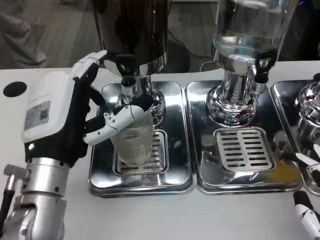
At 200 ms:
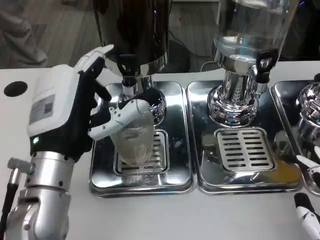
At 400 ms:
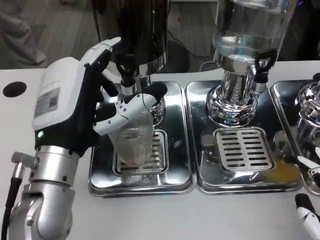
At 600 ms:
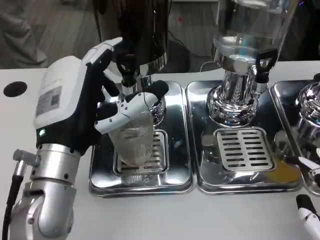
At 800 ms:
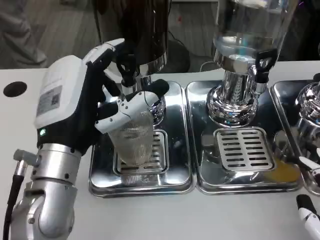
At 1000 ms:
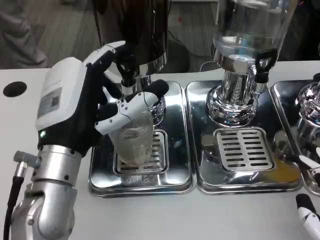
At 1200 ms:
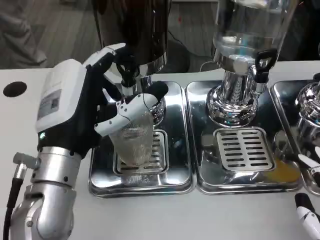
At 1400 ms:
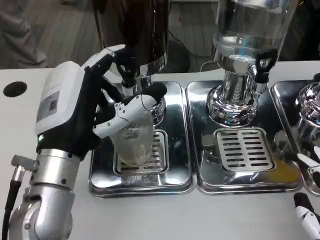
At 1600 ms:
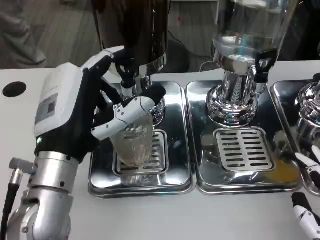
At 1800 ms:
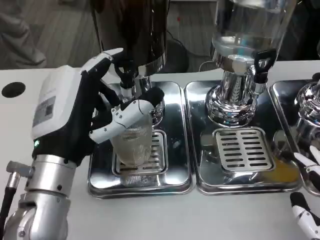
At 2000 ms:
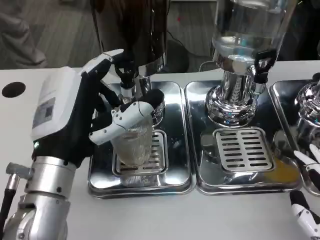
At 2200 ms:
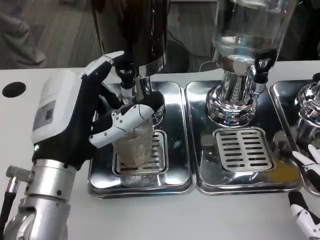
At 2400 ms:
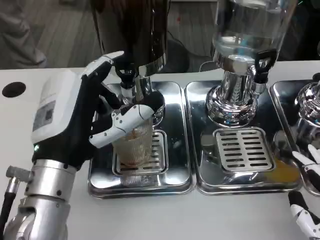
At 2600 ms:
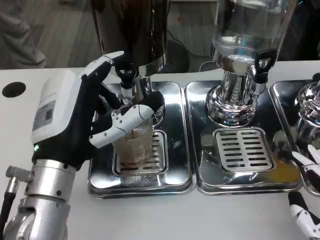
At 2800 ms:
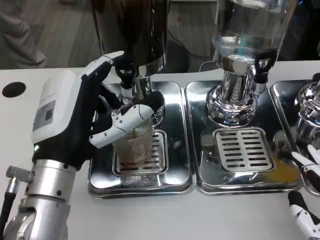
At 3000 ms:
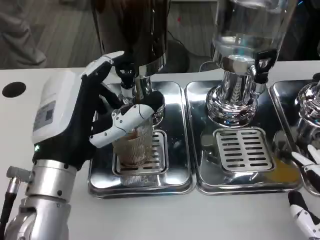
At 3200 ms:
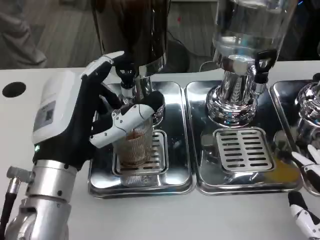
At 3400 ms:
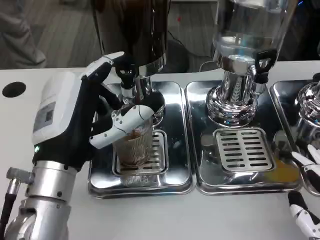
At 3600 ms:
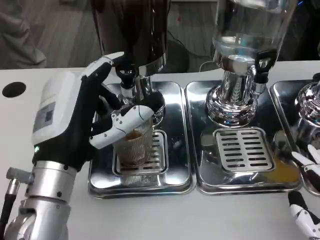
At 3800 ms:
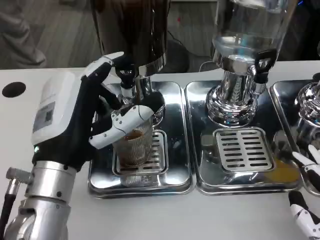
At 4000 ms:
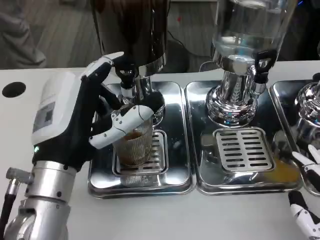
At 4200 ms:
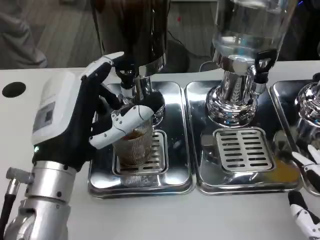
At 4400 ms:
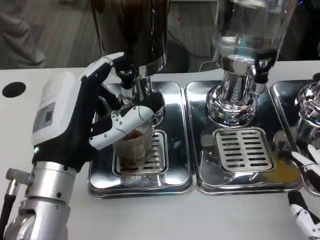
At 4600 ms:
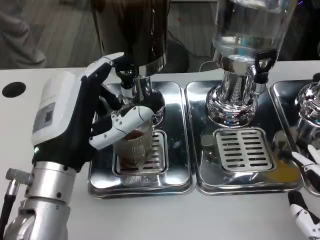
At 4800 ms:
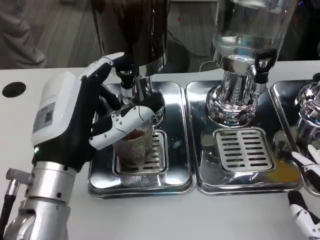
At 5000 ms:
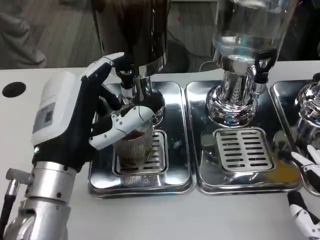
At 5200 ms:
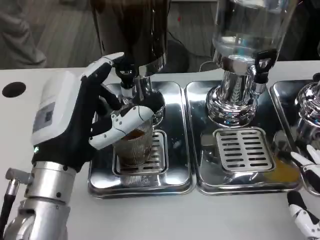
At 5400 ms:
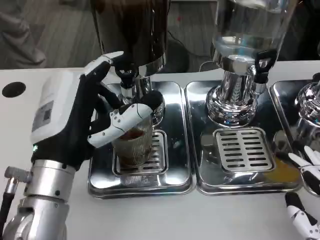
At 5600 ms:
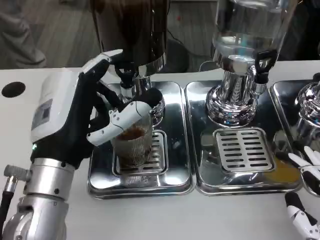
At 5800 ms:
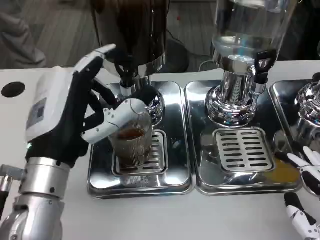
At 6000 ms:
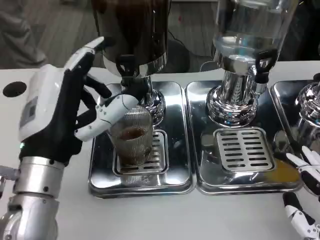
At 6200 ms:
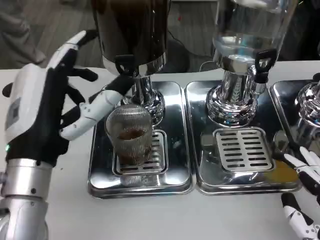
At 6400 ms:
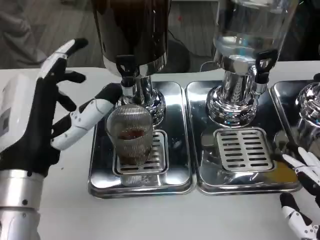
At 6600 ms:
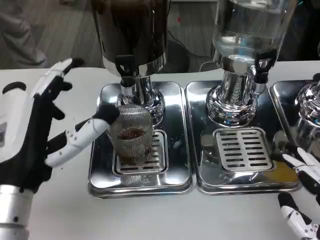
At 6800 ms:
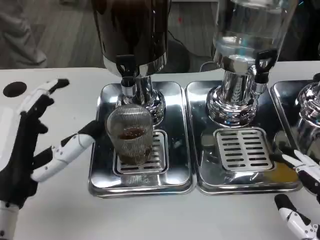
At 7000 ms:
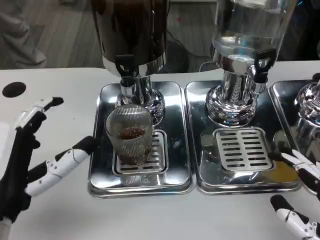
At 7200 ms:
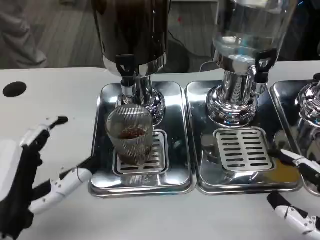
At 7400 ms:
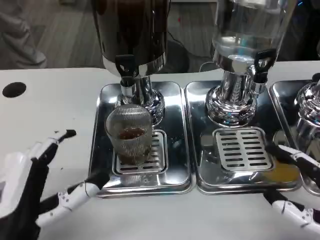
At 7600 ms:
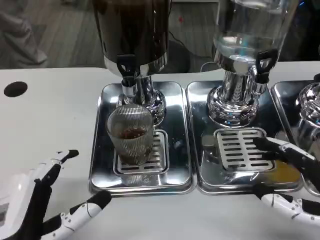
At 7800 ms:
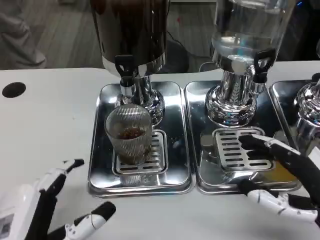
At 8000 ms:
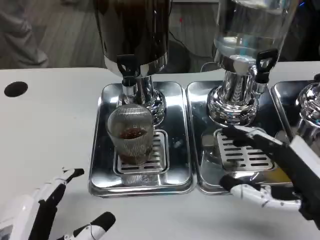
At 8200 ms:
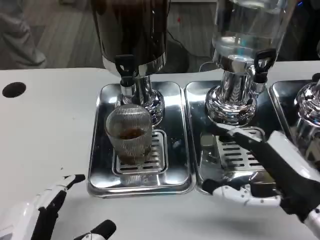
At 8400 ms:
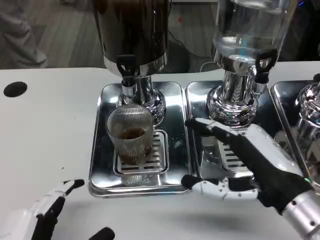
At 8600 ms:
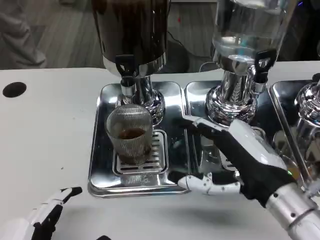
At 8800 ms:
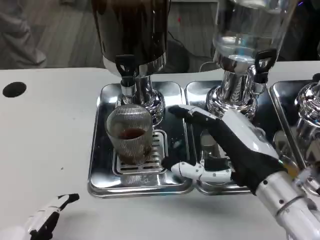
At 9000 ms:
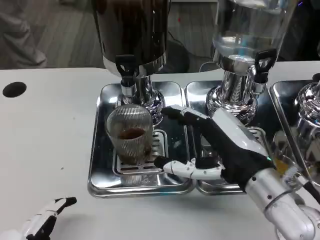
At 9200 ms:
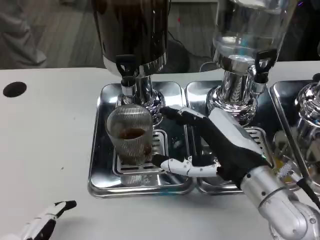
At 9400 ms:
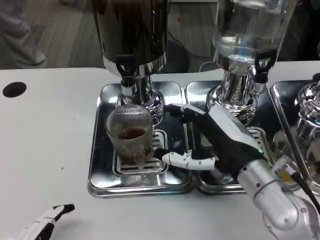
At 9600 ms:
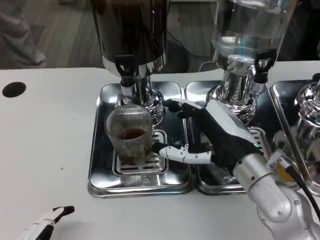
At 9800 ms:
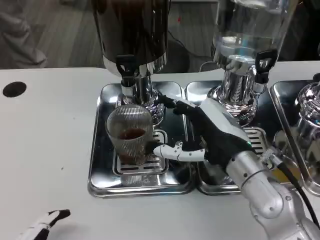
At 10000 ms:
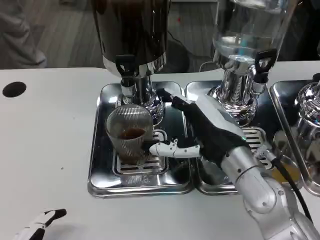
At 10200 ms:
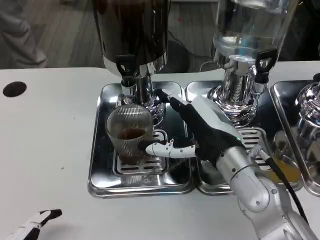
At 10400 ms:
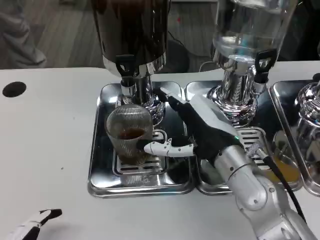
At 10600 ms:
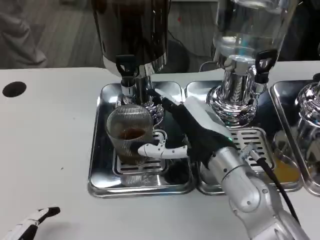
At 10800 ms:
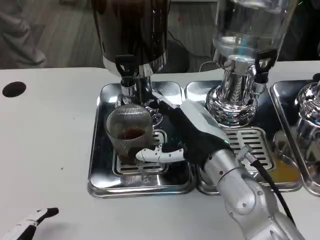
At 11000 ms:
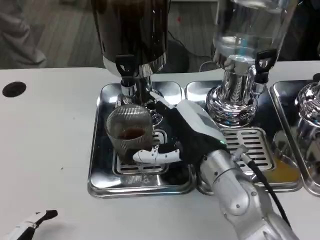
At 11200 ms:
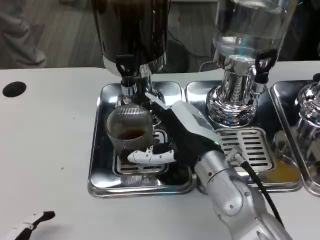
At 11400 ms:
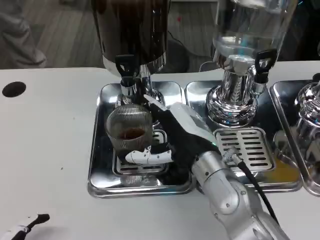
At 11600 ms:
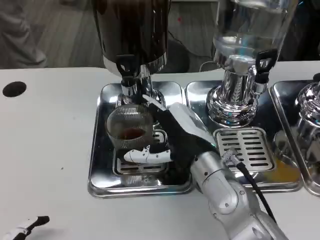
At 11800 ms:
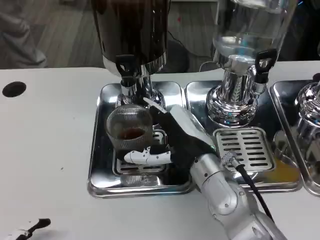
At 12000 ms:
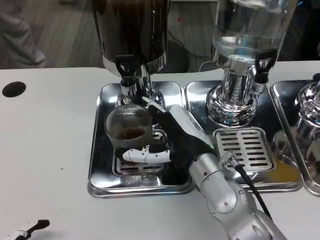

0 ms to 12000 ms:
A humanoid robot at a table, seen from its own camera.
Task of the whole recording: Grasp the cup under the faucet to collect the drink, then remove the cup.
0 ms to 1600 ms: The hands make only small movements.
1600 ms to 4400 ms: Both hands stay about where they are.
6000 ms to 7600 ms: The left hand is displaced backward and downward by some 10 cm.
7600 ms to 9000 ms: The right hand travels to the left and forward by some 15 cm; the left hand goes roughly 5 cm backward.
9000 ms to 10400 ms: The right hand ends up approximately 5 cm from where it was.
10400 ms to 12000 ms: The hands move only a little.

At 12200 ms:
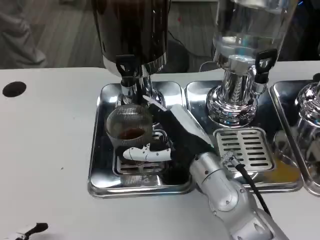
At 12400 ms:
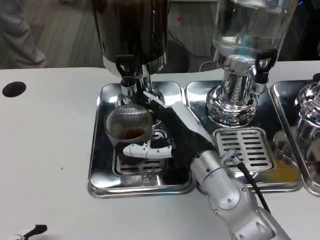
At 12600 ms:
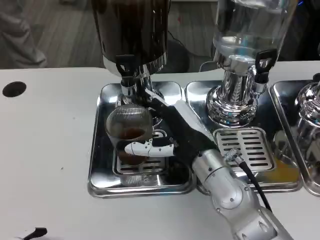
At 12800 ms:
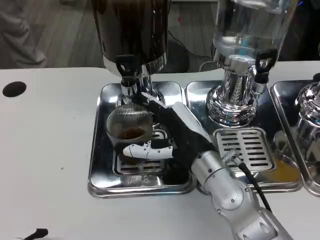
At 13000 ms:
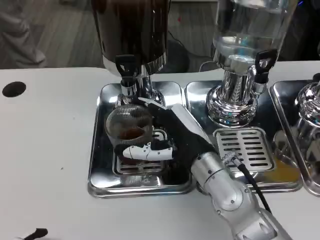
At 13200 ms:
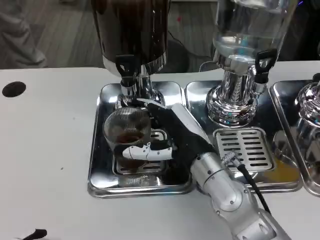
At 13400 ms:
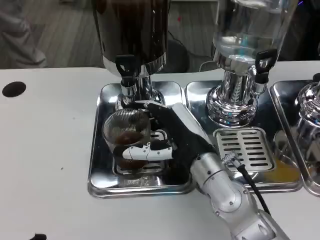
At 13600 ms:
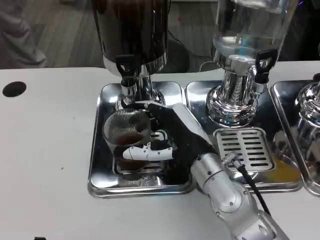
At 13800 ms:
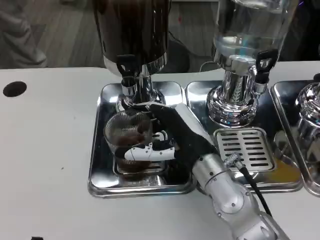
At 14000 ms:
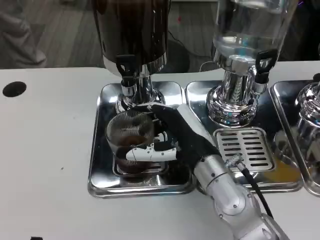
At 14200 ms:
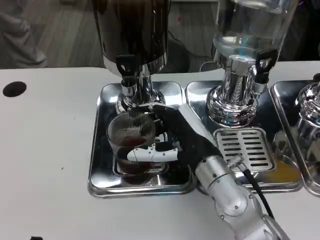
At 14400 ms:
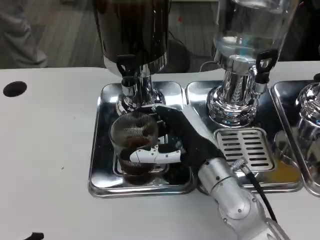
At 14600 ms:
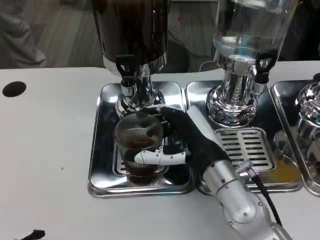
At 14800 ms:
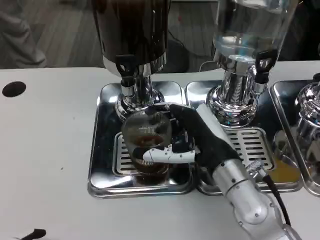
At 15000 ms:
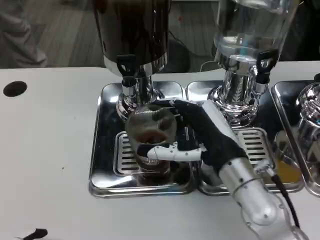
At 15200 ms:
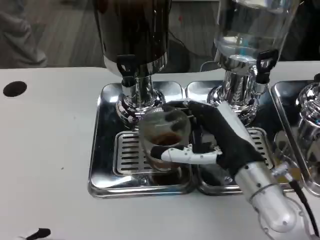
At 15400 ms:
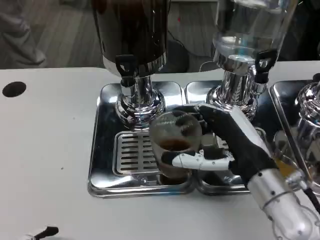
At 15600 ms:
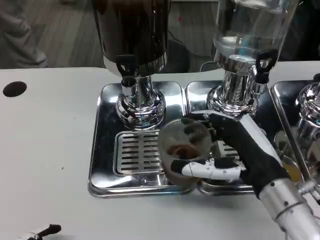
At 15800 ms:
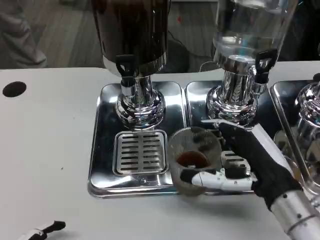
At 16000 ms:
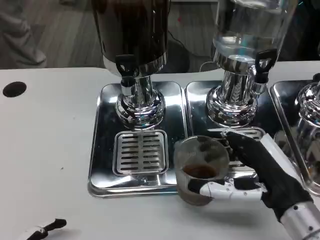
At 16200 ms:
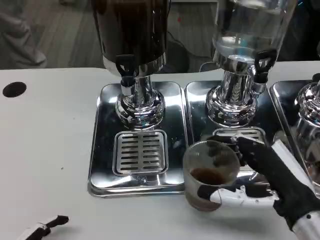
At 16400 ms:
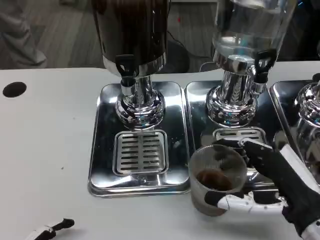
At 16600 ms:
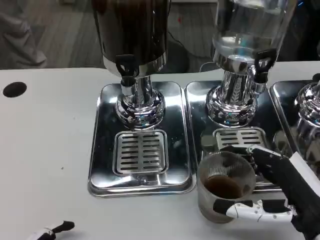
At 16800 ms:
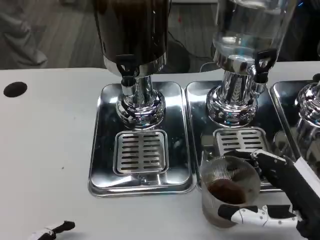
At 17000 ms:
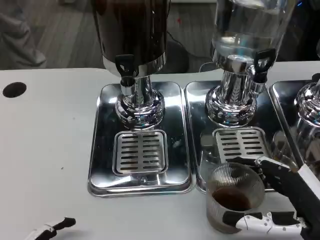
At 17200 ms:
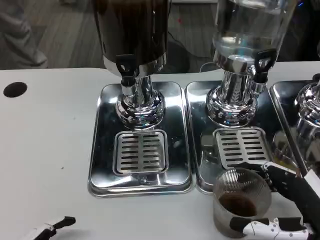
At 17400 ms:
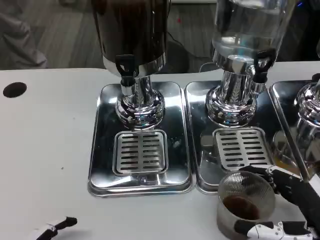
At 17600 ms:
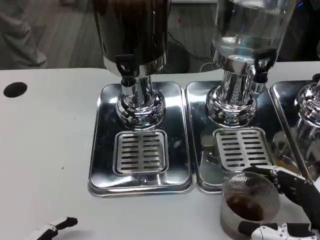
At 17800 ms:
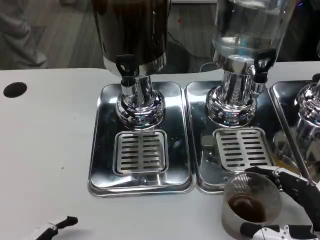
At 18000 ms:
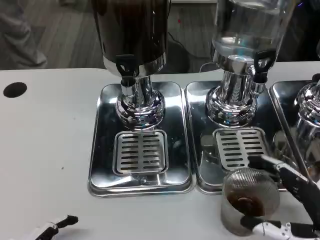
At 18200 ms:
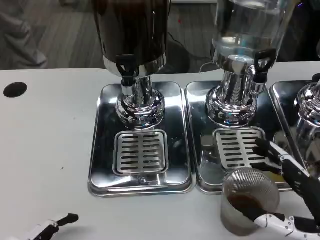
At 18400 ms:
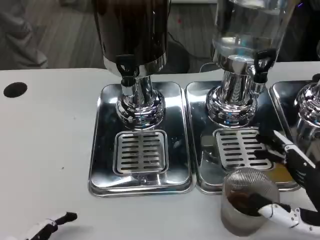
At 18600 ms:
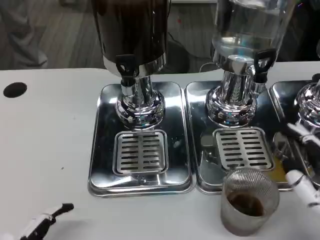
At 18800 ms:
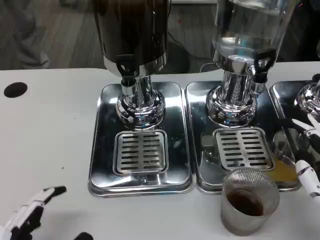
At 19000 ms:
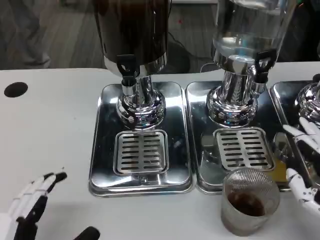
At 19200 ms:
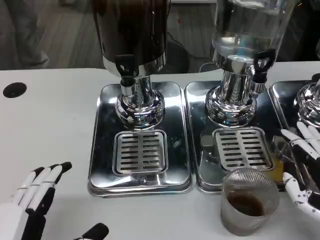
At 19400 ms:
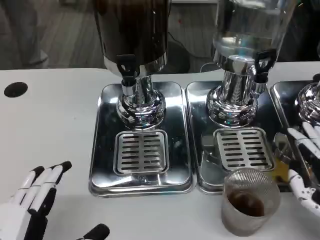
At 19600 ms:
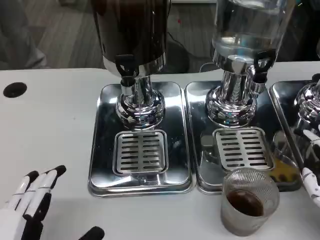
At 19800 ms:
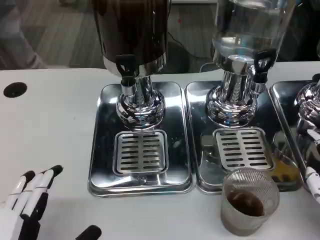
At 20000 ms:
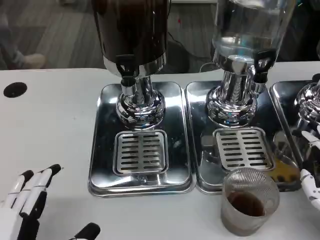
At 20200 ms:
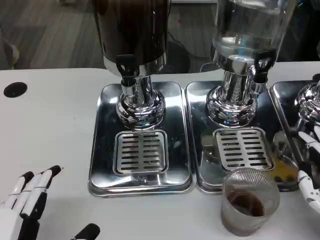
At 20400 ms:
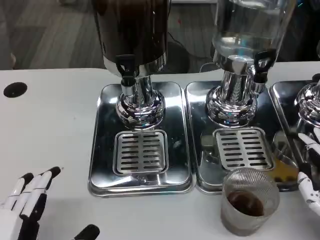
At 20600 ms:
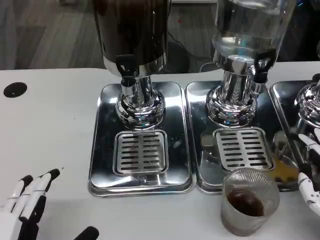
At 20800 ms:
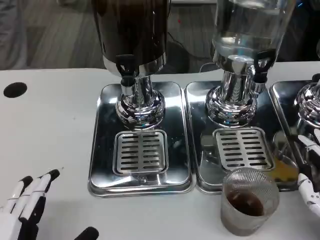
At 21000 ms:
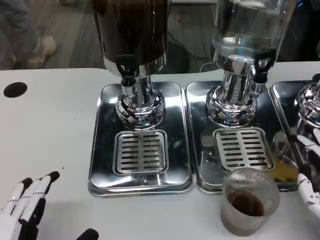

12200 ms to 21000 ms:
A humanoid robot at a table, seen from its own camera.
Task of the whole recording: Grasp the cup under the faucet to collect the drink, then remove the cup.
12200 ms to 13600 ms: There are only small adjustments of the hands.
13600 ms to 15200 ms: The right hand moves to the right, some 5 cm.
15200 ms to 16600 ms: The right hand travels backward and to the right by some 10 cm.
16600 ms to 18000 ms: The right hand ends up about 5 cm from where it was.
19600 ms to 21000 ms: Neither hand changes place.

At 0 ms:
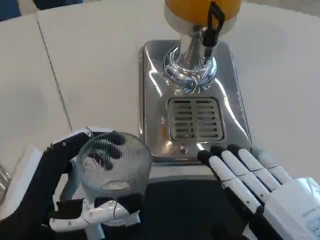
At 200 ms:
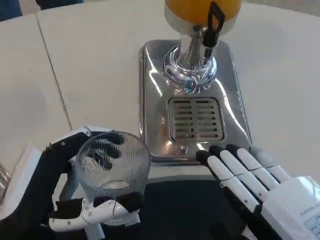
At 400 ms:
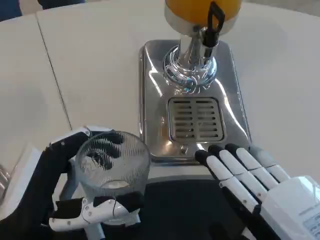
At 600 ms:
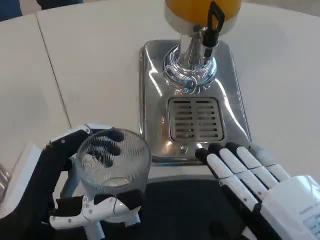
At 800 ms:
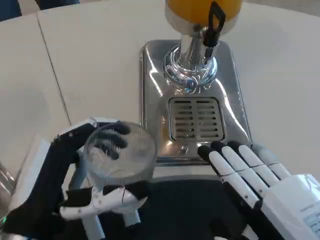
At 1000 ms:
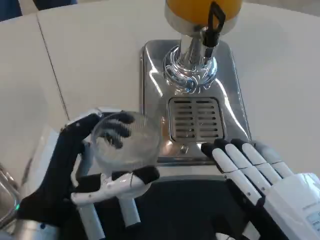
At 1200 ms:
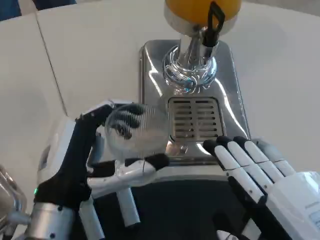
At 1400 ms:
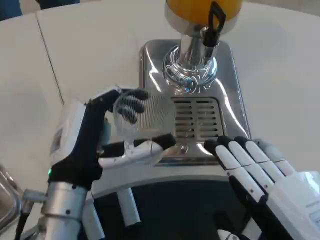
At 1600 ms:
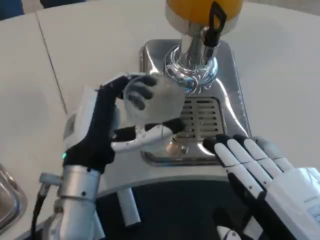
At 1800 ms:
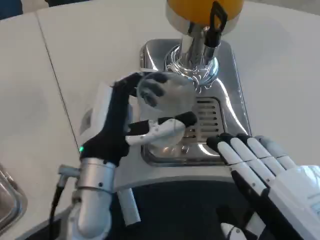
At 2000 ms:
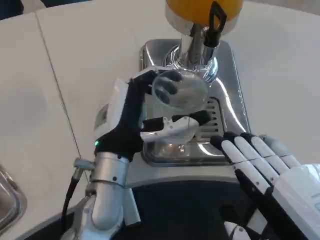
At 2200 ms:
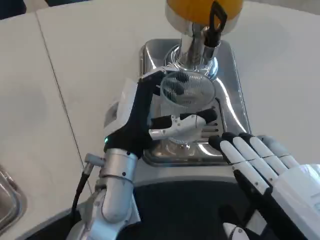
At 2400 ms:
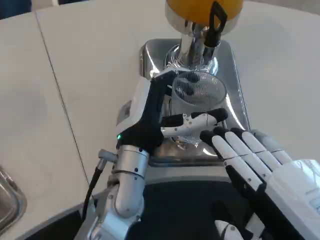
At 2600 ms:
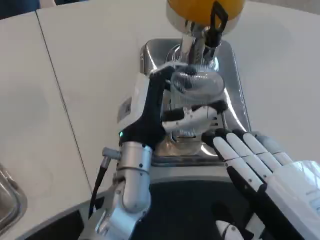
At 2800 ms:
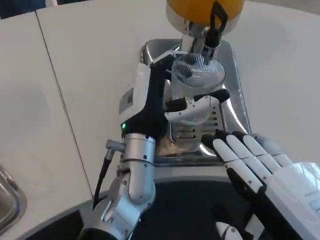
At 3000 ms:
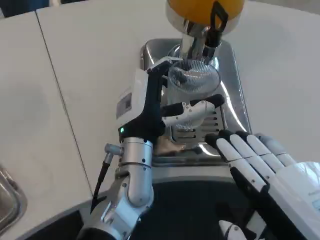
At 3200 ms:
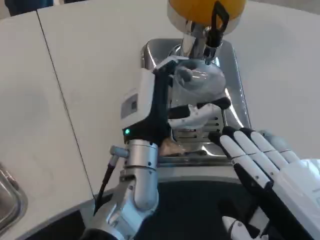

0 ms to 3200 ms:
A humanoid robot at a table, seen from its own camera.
Task of the whole recording: Grasp the cup under the faucet to collect the drink, then remove the cup.
0 ms to 1600 ms: The left hand travels forward and to the right by roughly 15 cm.
1600 ms to 3200 ms: The left hand goes approximately 10 cm to the right and forward.
